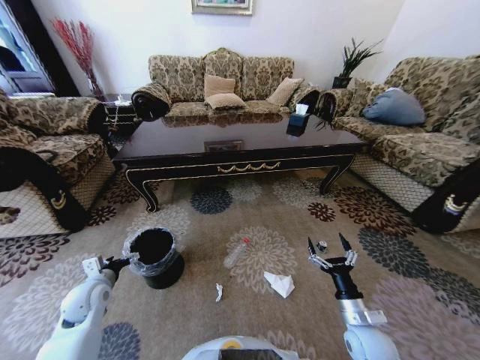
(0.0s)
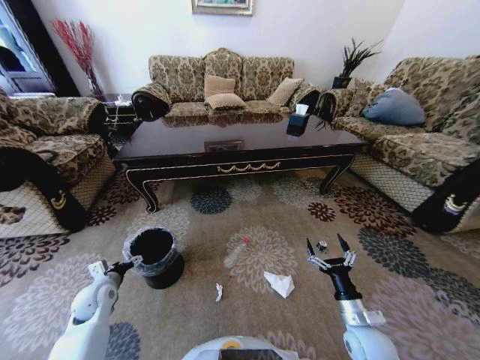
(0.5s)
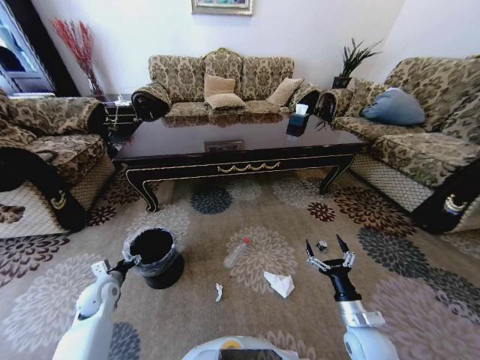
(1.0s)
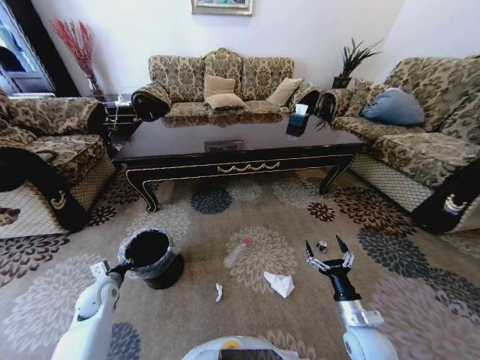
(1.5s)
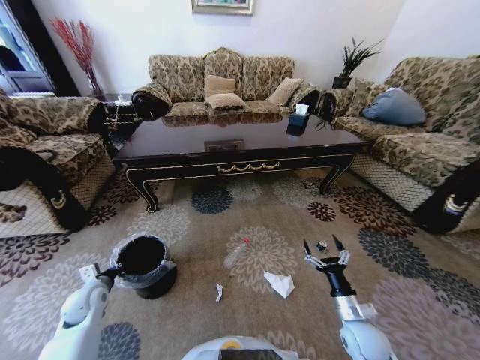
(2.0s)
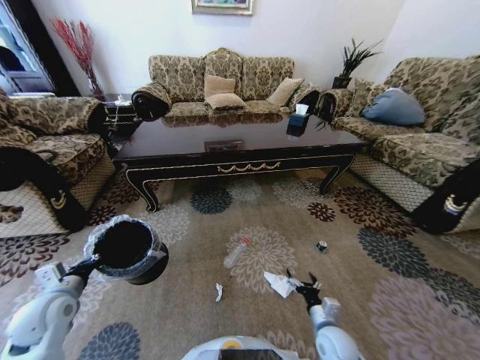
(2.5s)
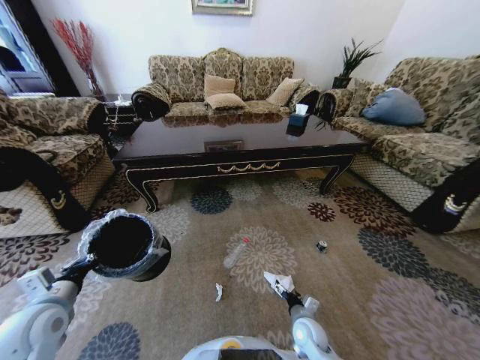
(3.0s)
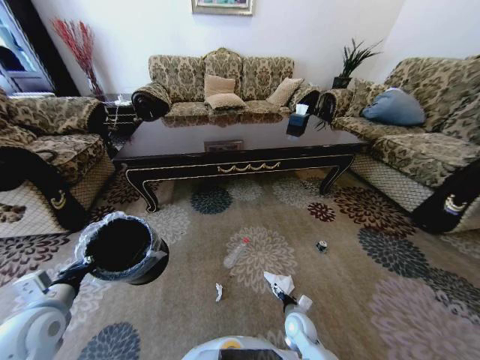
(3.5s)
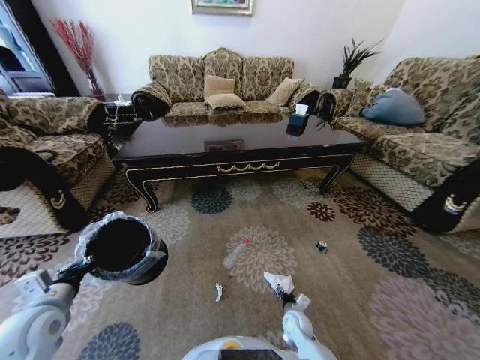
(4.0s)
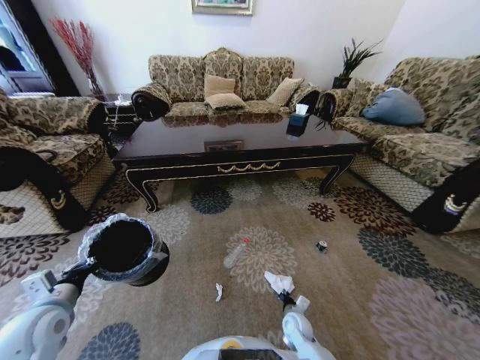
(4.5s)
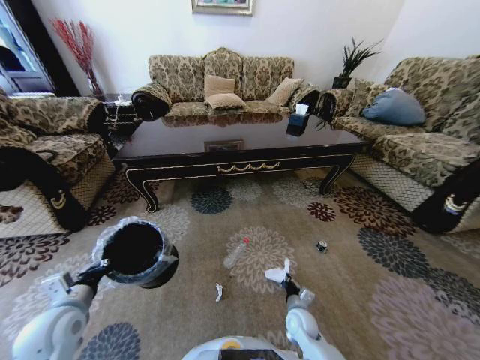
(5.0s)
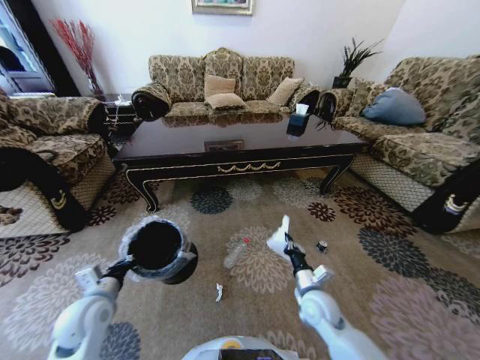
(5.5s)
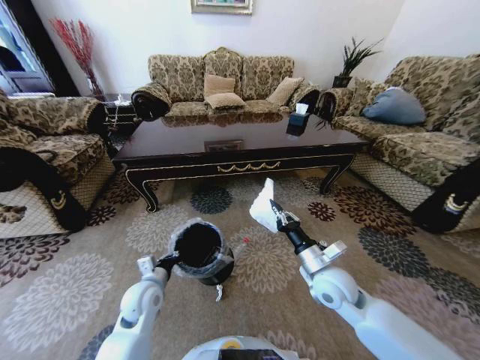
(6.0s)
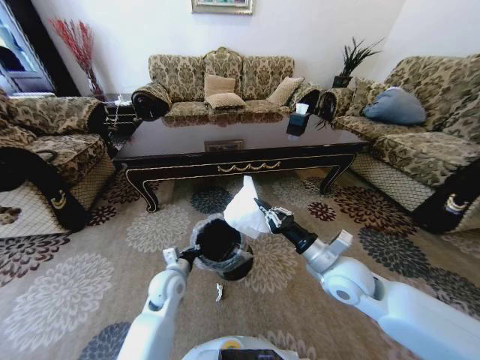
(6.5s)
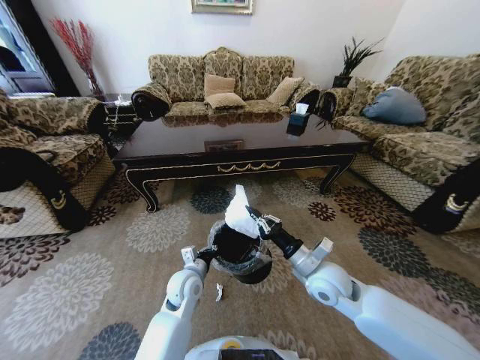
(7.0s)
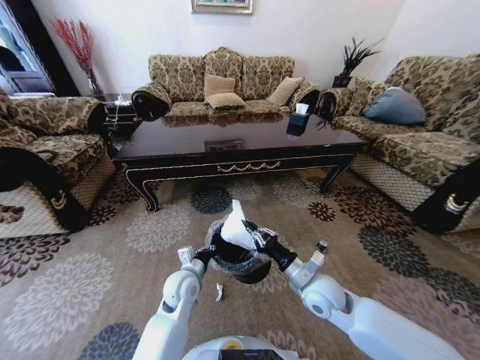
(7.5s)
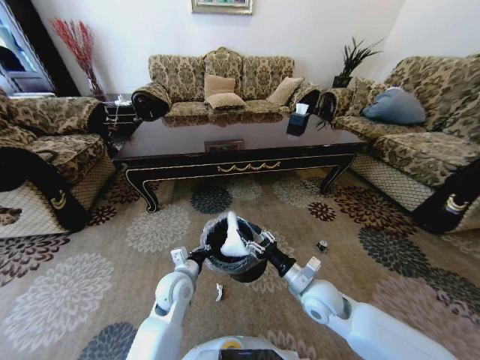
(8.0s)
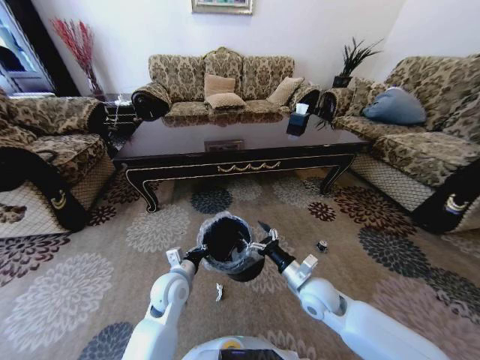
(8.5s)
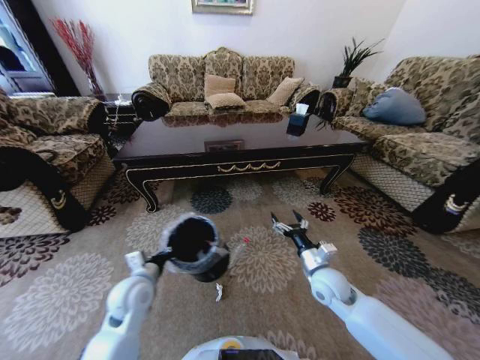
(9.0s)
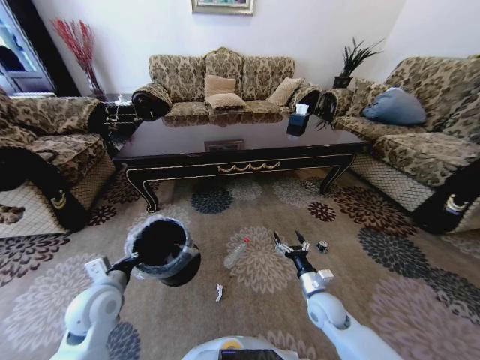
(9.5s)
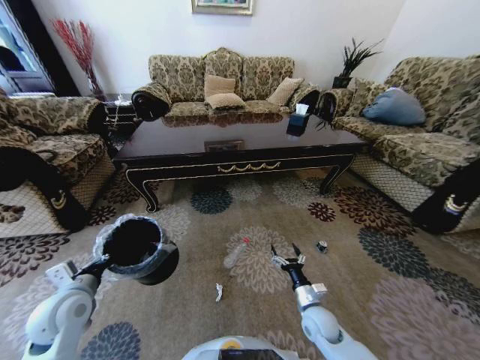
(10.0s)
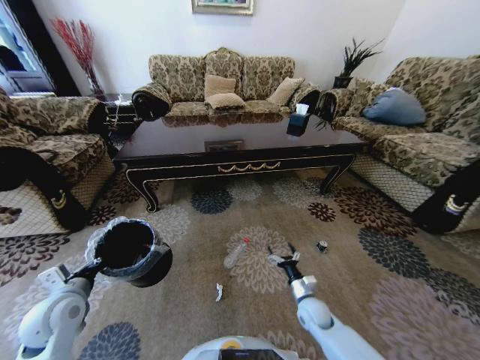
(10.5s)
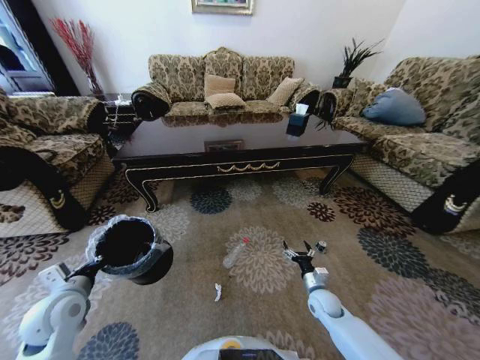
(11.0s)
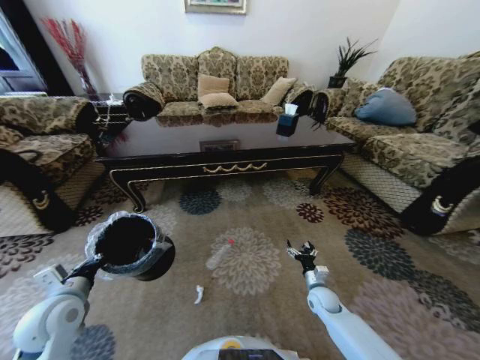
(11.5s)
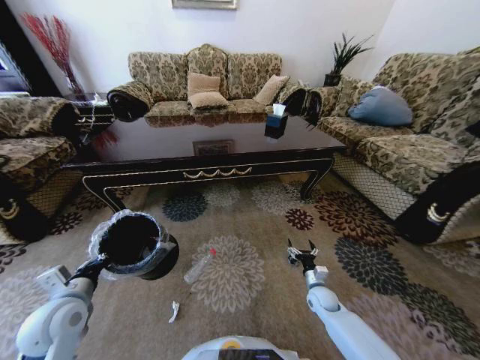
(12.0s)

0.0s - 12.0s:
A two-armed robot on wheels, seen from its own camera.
Task of the whole recording: Move to the front of the table and pick up the trash from the floor, then place it into the trash bin.
0.0s - 2.0s: The left gripper changes place by roughly 5 cm, and closes its fingers.
2.0s - 4.0s: The right gripper is displaced downward and to the left by roughly 20 cm, while the left gripper is displaced upward and backward by approximately 15 cm.
4.0s - 6.0s: The left gripper is displaced to the right, downward and forward by about 20 cm. Meanwhile the right gripper travels upward by about 25 cm, and closes up.
6.0s - 8.0s: The right gripper moves some 5 cm, and opens its fingers. The left gripper moves to the right, about 10 cm.
8.0s - 10.0s: The right gripper heads downward, covering about 15 cm, and opens up; the left gripper shifts approximately 20 cm to the left.
10.0s - 12.0s: The right gripper moves forward, to the right and downward, about 10 cm.

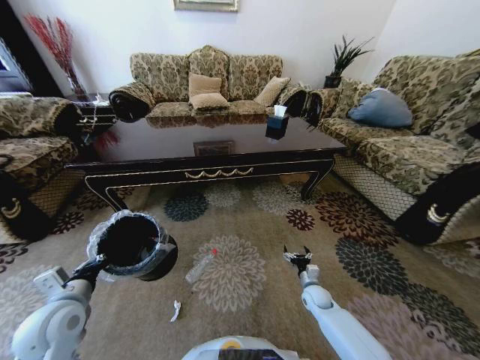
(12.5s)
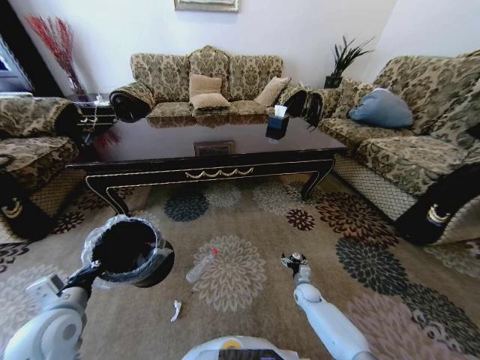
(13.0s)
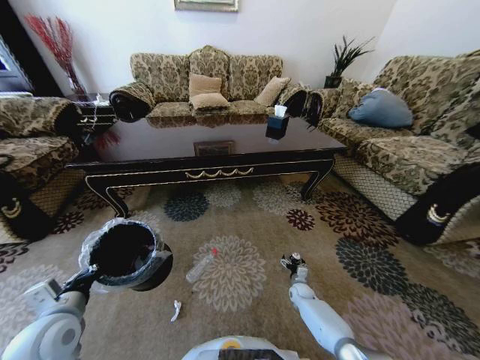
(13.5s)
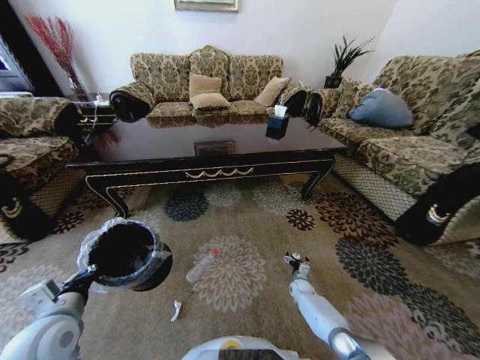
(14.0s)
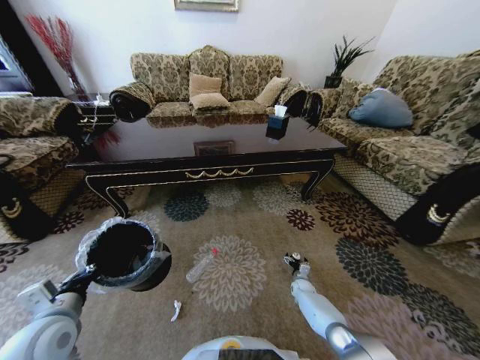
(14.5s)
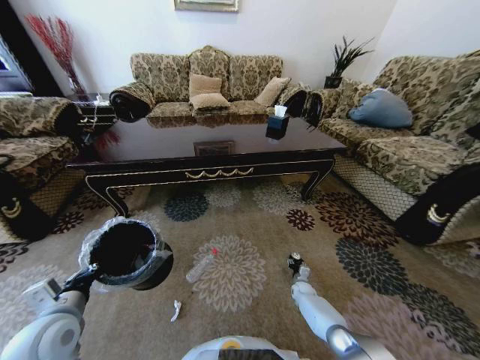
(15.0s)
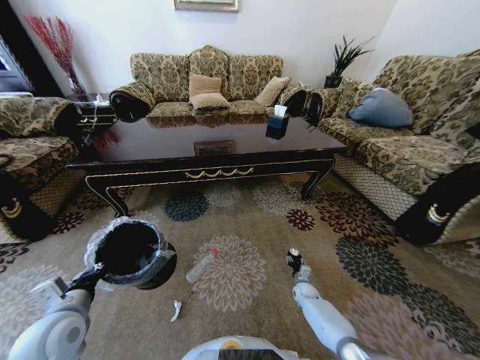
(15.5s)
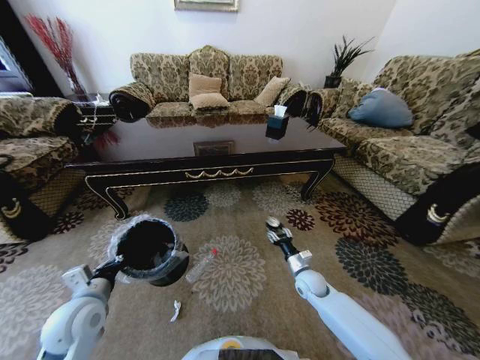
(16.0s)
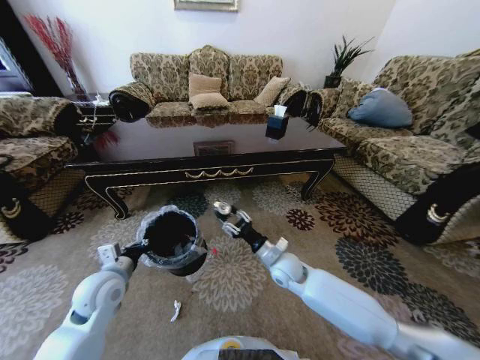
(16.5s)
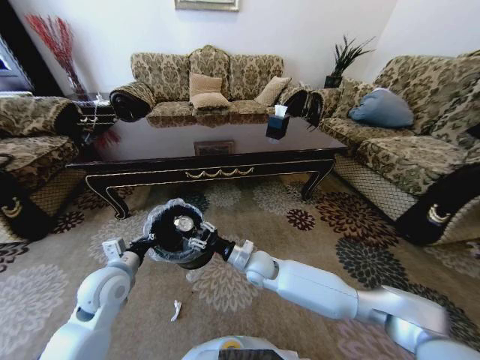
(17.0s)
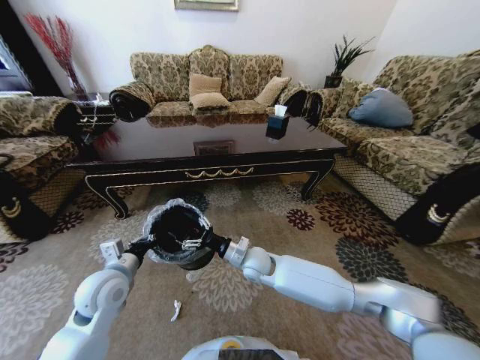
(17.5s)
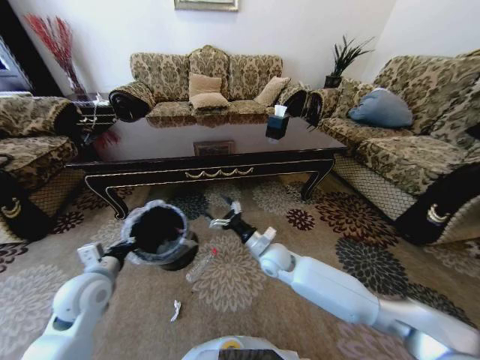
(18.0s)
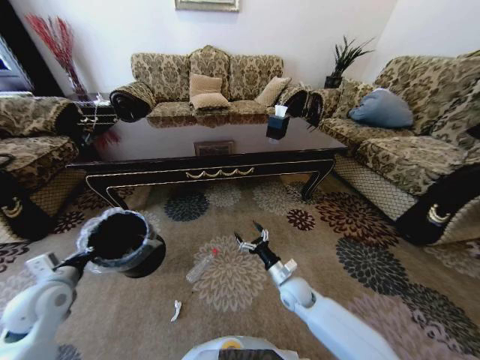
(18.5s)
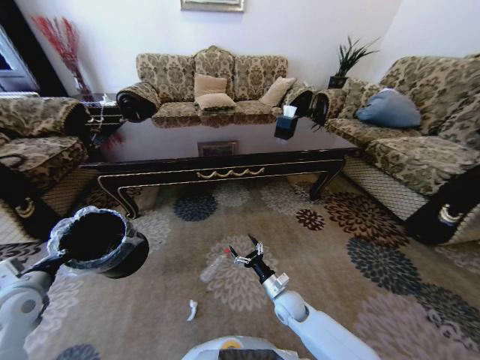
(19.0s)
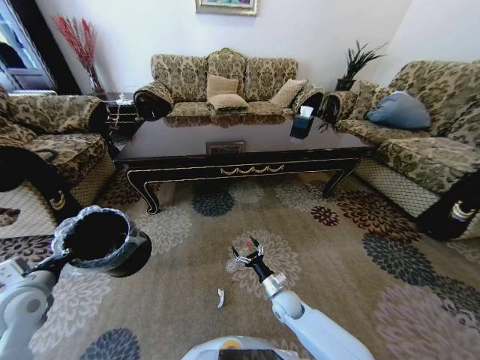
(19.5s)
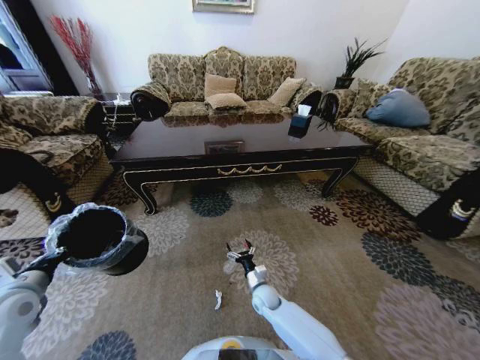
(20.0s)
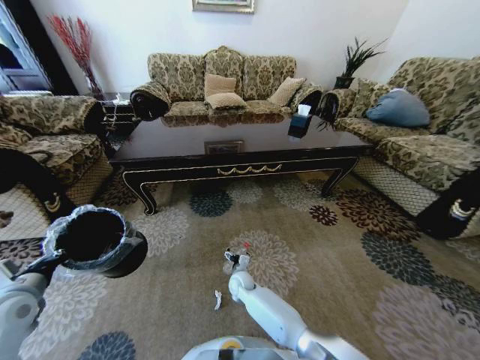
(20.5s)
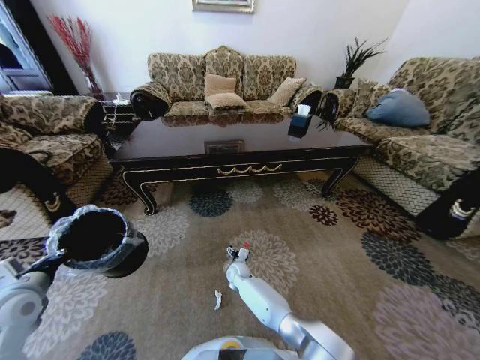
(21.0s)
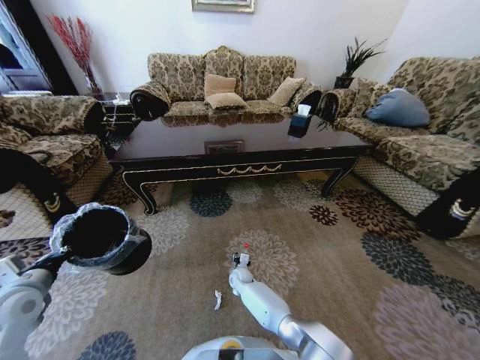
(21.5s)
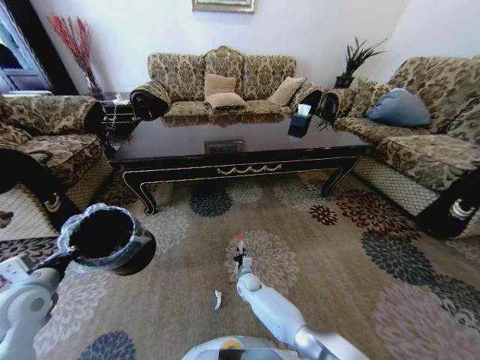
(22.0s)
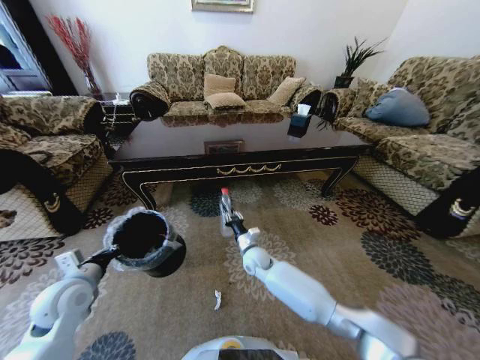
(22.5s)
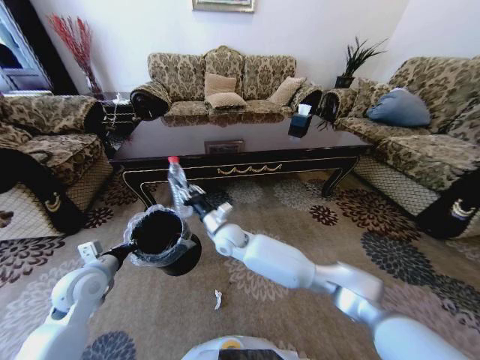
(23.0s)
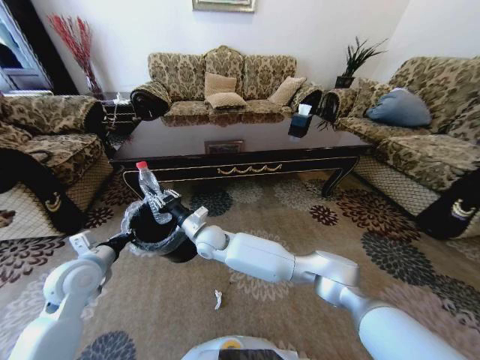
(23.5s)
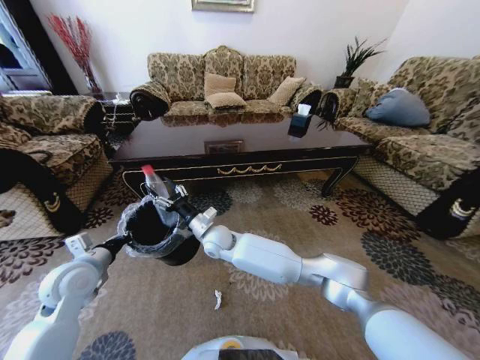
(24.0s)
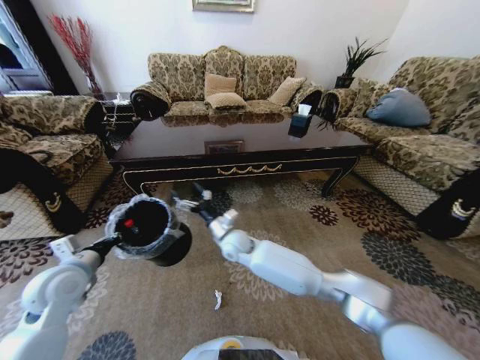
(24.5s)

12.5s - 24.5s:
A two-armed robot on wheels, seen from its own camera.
Task of the whole recording: Move to the front of the table and pick up the trash from the floor, then place it into the trash bin.
12.5s - 14.5s: The right gripper heads downward and forward, covering about 10 cm.
14.5s - 16.5s: The left gripper heads forward, covering some 10 cm. Meanwhile the right gripper shifts approximately 35 cm upward and to the left, and closes its fingers.
16.5s - 18.5s: The right gripper moves downward, approximately 10 cm, reaches approximately 10 cm to the left, then returns, and opens its fingers; the left gripper moves to the left, approximately 10 cm.
18.5s - 20.5s: The left gripper shifts by some 5 cm; the right gripper shifts approximately 20 cm to the left and downward.
20.5s - 22.5s: The right gripper heads upward and to the right, covering about 10 cm, and closes up. Meanwhile the left gripper heads to the right, covering approximately 10 cm.
22.5s - 24.5s: The right gripper shifts roughly 10 cm upward and to the left, and opens.

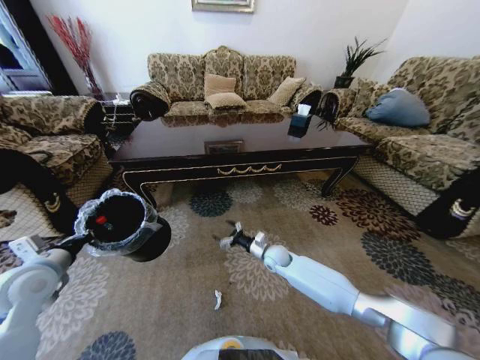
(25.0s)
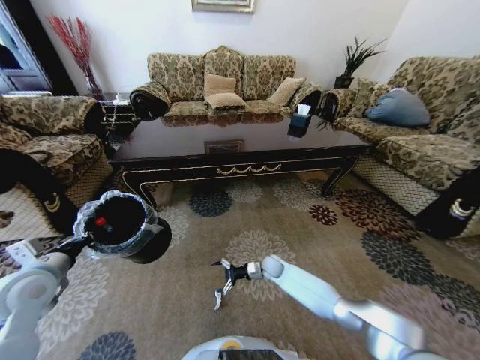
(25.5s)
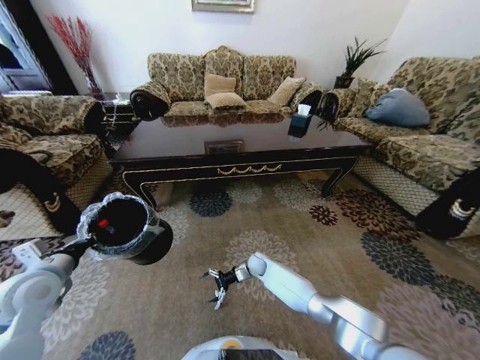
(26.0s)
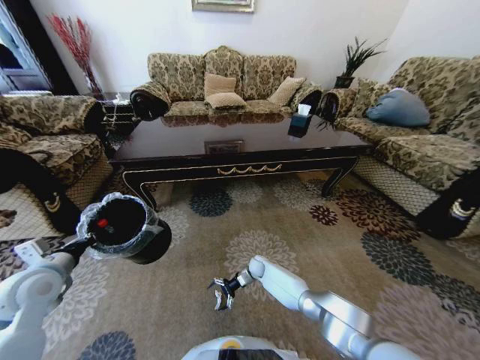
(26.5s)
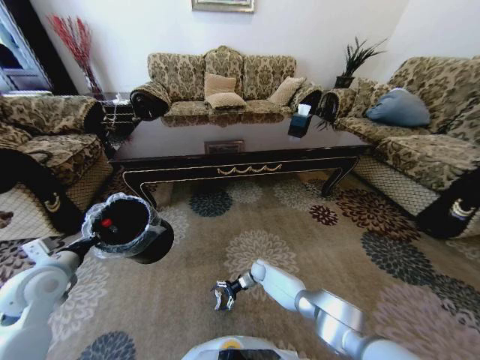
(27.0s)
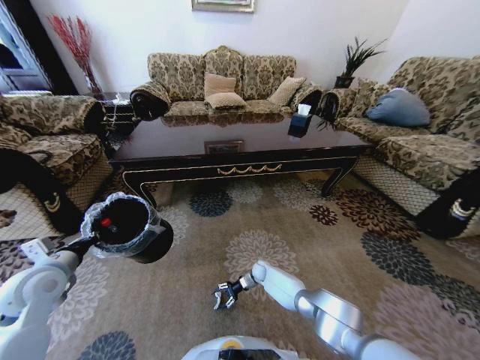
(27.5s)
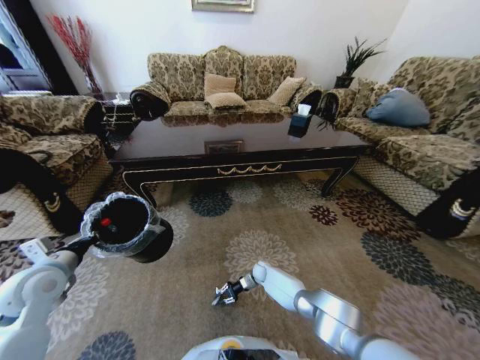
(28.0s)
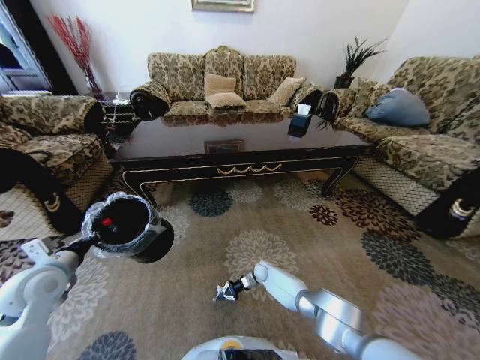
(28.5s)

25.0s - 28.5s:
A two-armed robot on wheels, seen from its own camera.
Task of the whole recording: Move to the front of the table and pick up the trash from the floor, then place it into the trash bin.
25.0s - 27.0s: The right gripper goes about 15 cm downward.
27.0s - 28.5s: The right gripper closes up.
